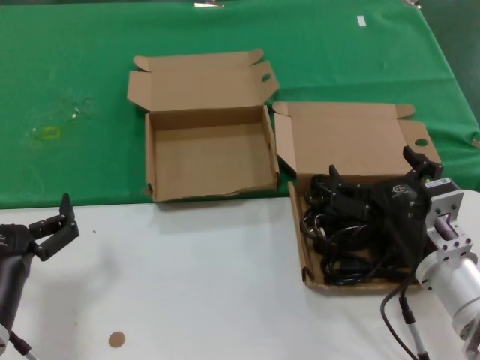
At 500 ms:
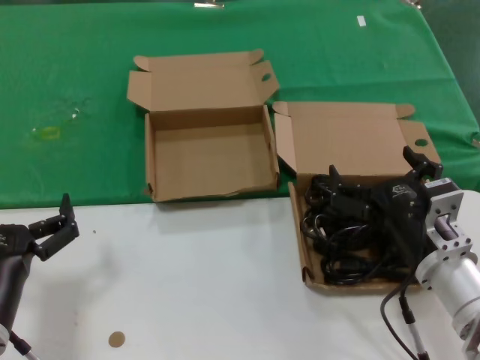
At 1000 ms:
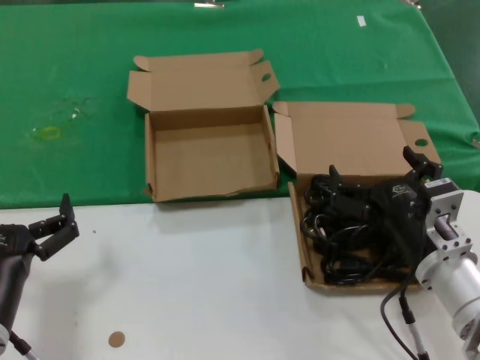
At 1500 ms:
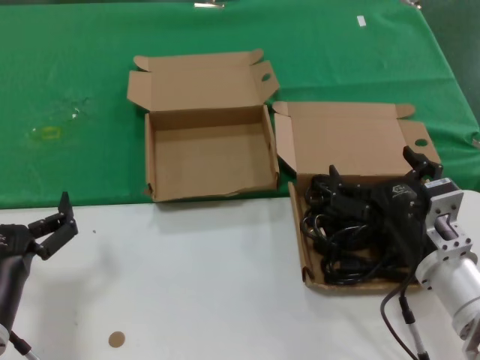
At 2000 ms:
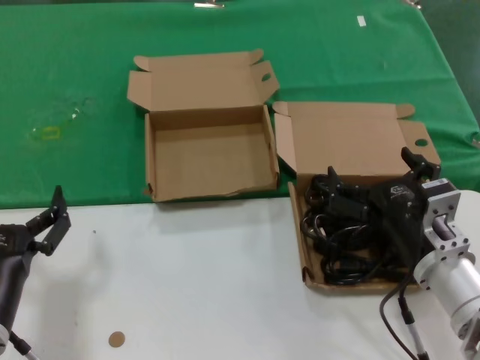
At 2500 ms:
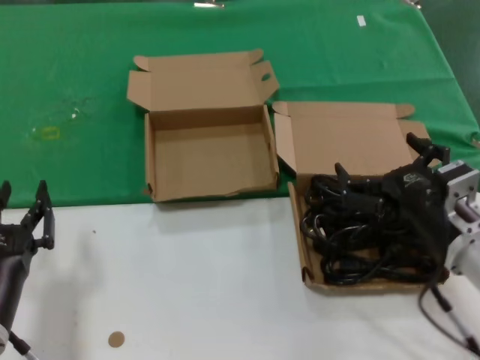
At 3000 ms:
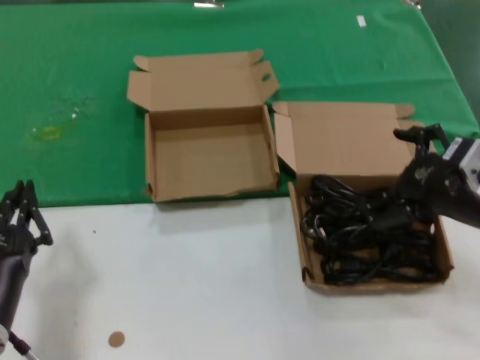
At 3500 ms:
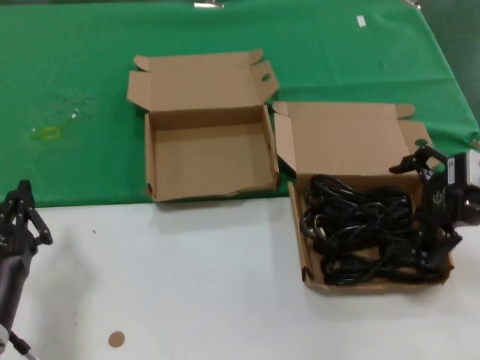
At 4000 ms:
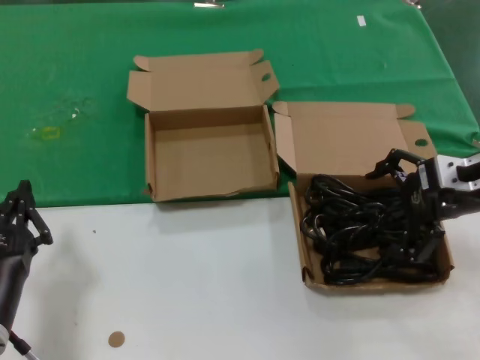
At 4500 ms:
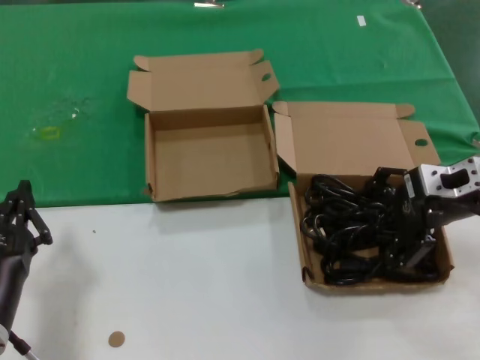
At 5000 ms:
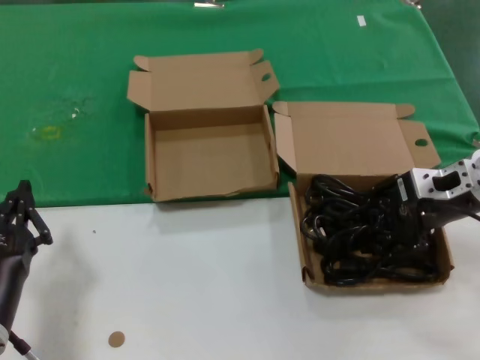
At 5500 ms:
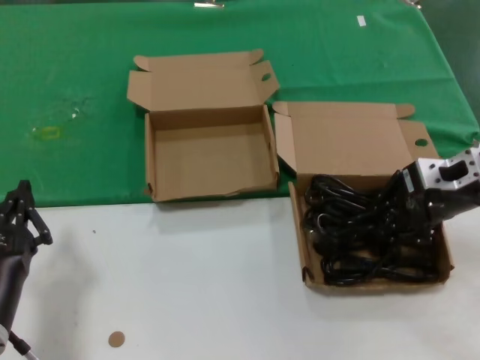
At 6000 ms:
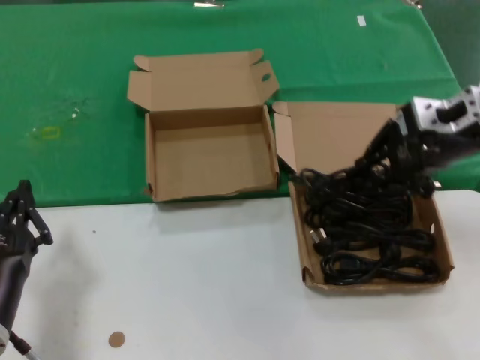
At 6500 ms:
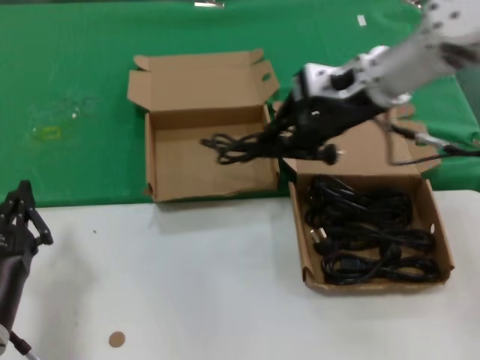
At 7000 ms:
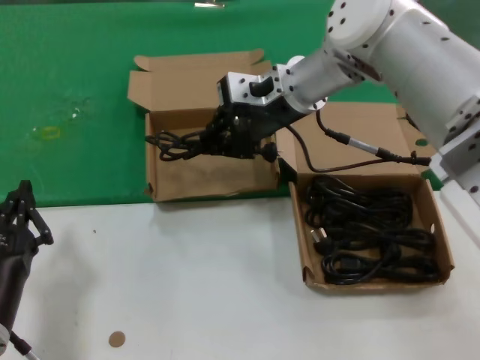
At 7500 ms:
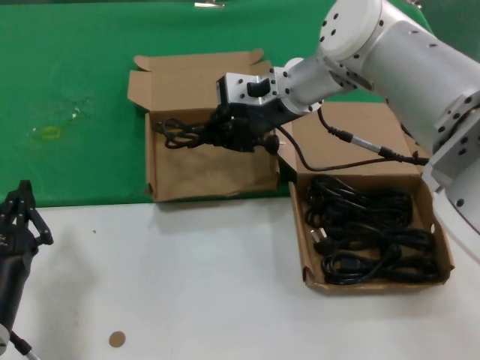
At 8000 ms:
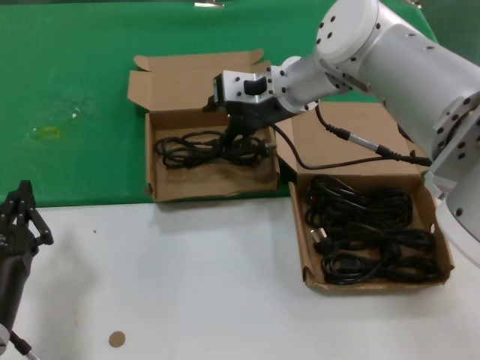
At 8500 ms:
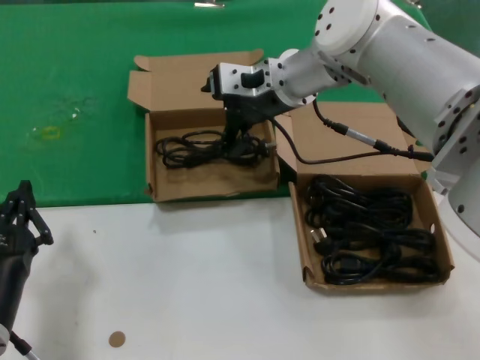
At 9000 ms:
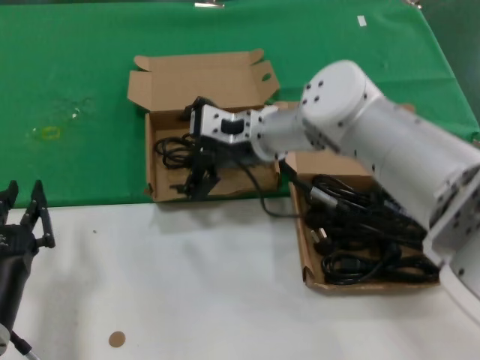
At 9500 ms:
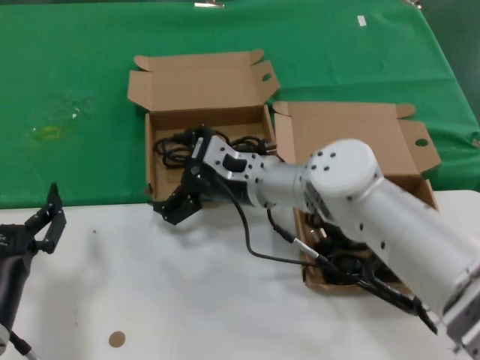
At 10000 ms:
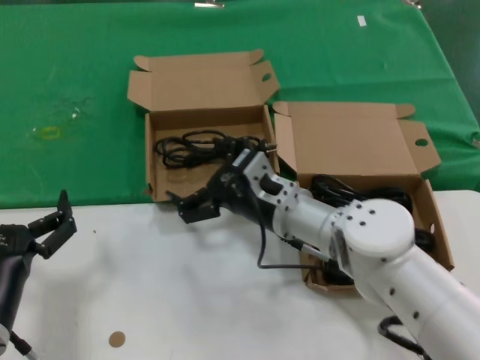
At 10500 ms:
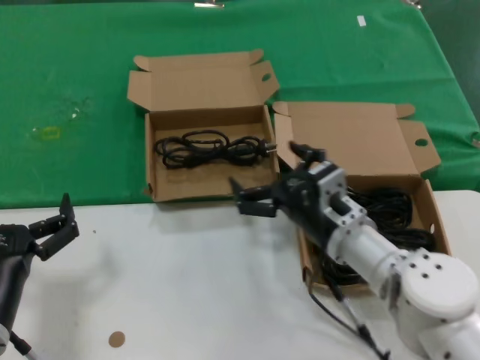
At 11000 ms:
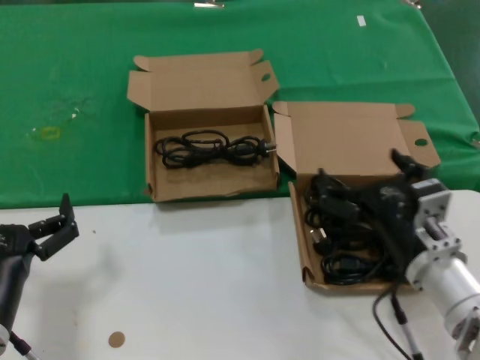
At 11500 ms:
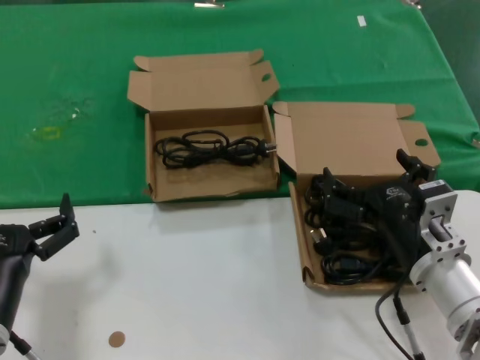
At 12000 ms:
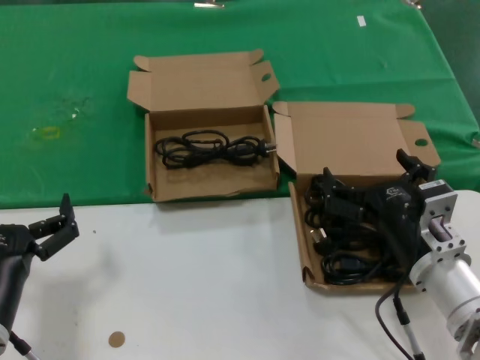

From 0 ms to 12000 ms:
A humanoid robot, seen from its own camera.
Task of the whole recording: take the parts from the box containing them and put them into an empty box.
Step, from 0 ms to 5000 ms: Grasp the data cable.
Step, from 5500 ms to 8000 ms: Place the data cable in the another box.
From 0 ms to 2000 ms: Both hands stay about where they are.
From 2000 ms to 4000 ms: The right hand shifts about 20 cm upward, to the right and forward.
From 4000 ms to 6000 ms: The right hand heads upward, covering approximately 5 cm.
From 6000 ms to 8000 ms: The right hand travels to the left and forward by roughly 25 cm.
From 8000 ms to 10000 ms: The right hand travels downward and backward by approximately 20 cm.
From 10000 ms to 12000 ms: The right hand is displaced backward and to the right by roughly 20 cm.

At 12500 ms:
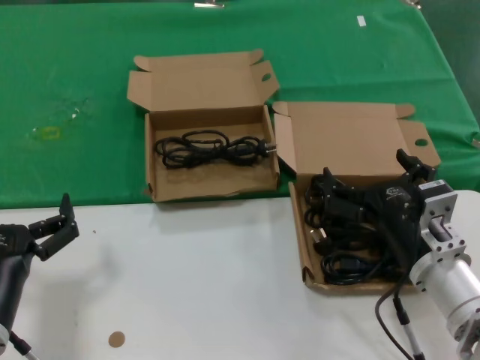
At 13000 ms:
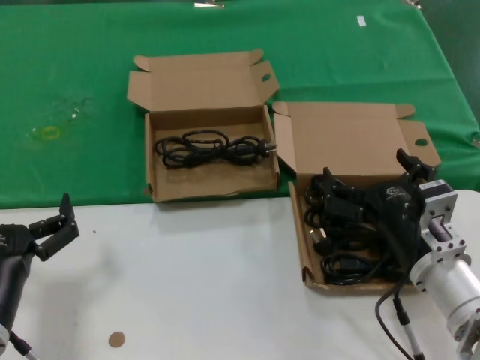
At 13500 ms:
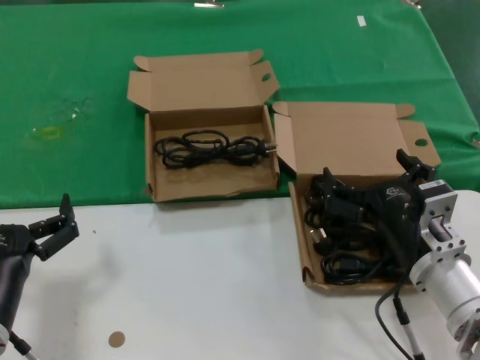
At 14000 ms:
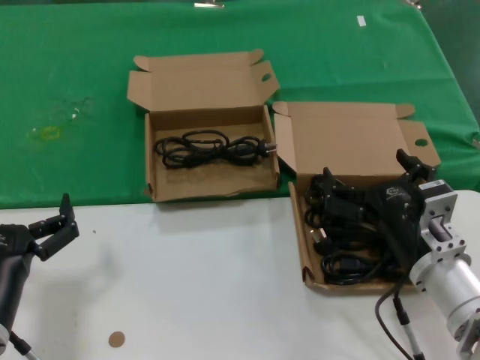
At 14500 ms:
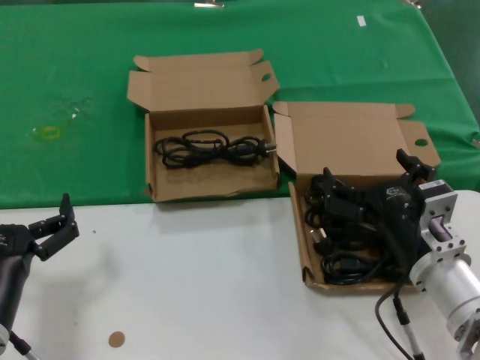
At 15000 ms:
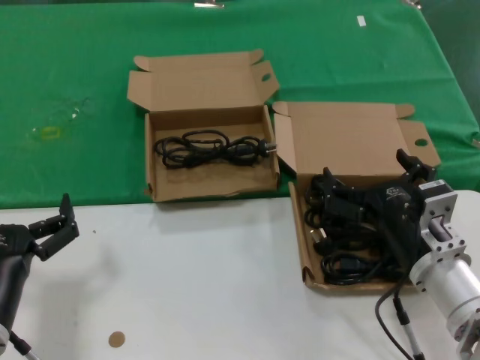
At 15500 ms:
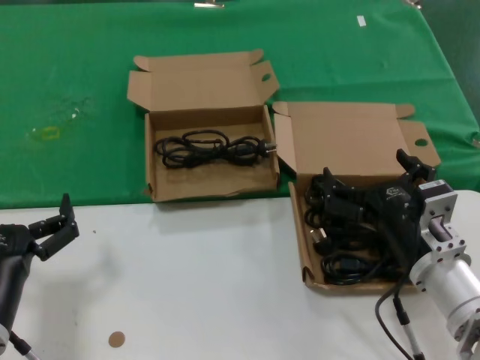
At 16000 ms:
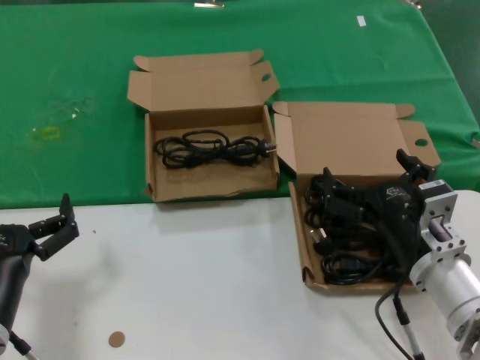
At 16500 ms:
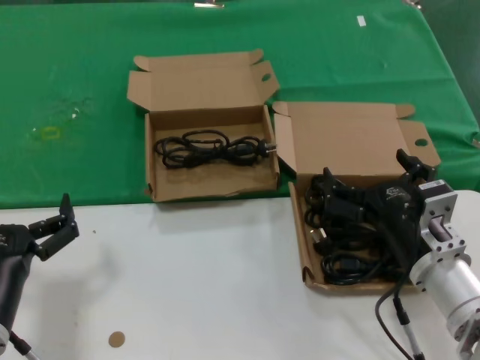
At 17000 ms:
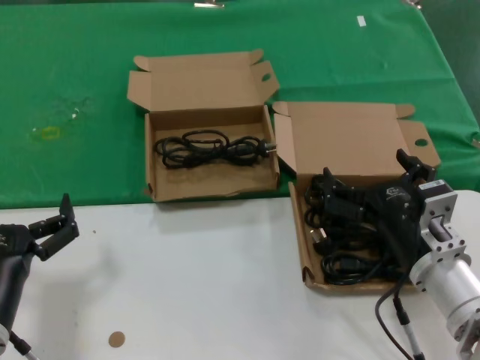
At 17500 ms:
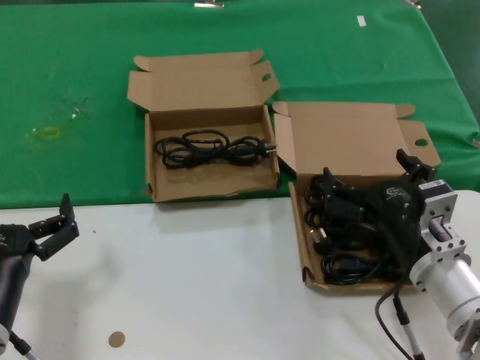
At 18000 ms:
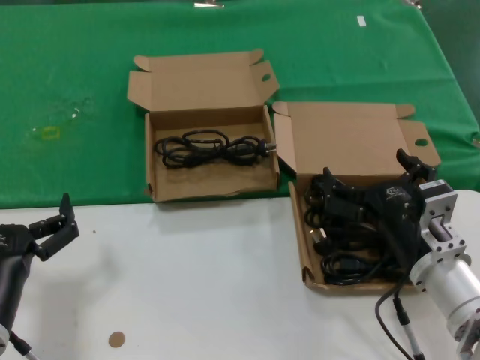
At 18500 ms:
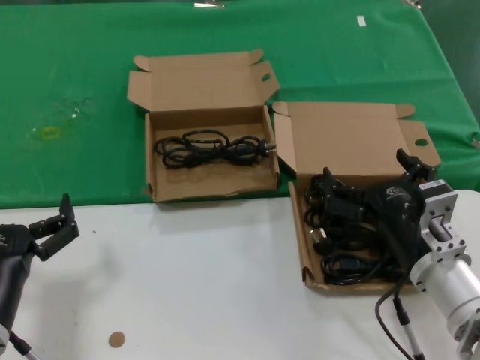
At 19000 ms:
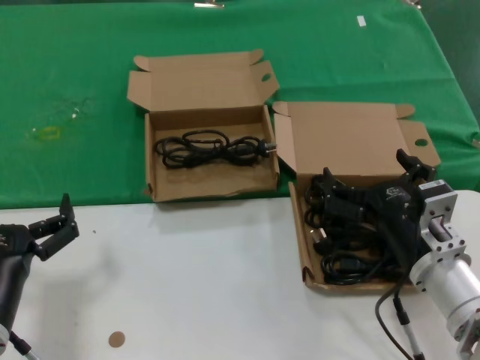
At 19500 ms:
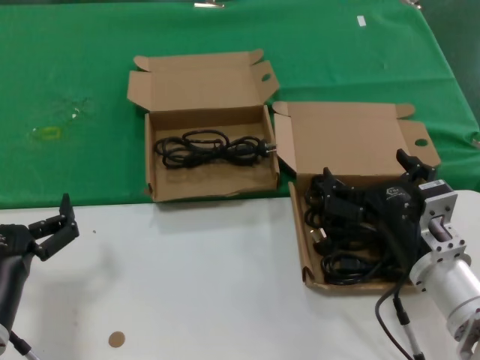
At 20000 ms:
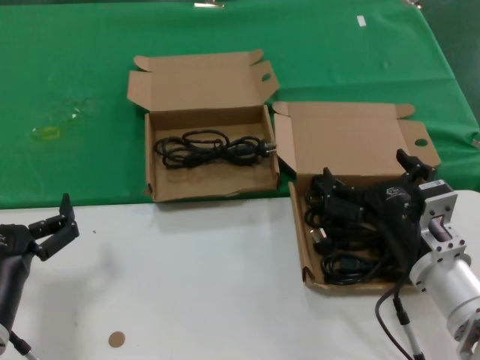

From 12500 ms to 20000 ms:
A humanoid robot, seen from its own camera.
Task of the whole recording: take the parts from the box containing them and put them into an empty box.
From 12500 ms to 20000 ms: The two hands keep their place.

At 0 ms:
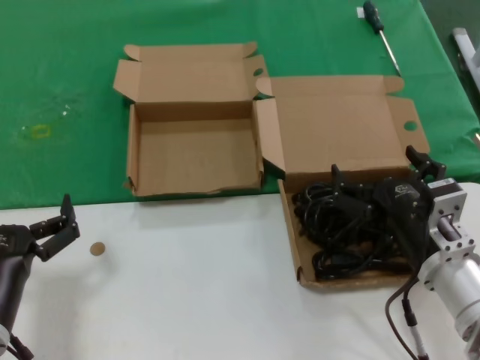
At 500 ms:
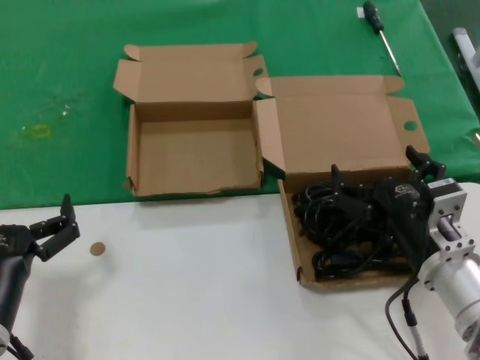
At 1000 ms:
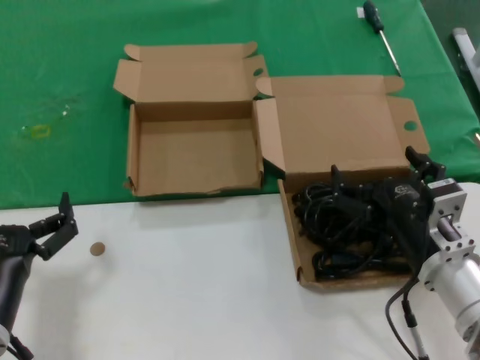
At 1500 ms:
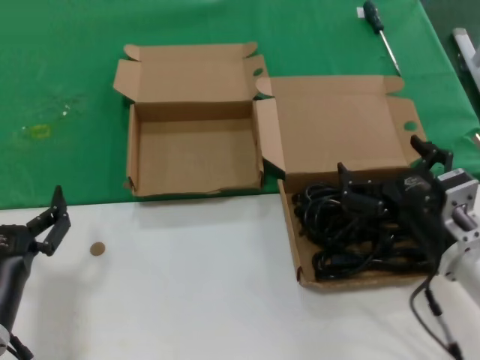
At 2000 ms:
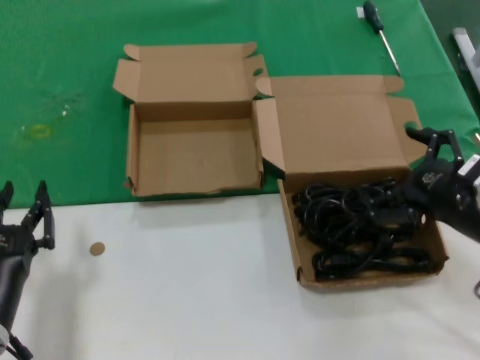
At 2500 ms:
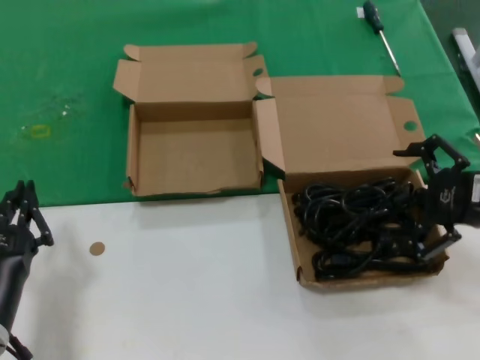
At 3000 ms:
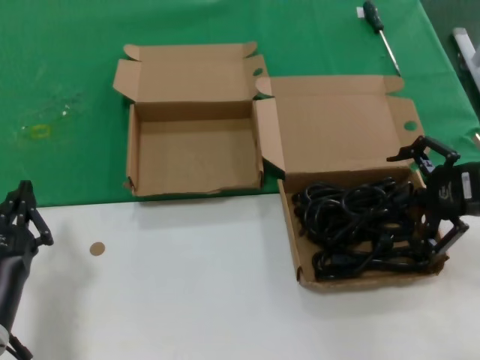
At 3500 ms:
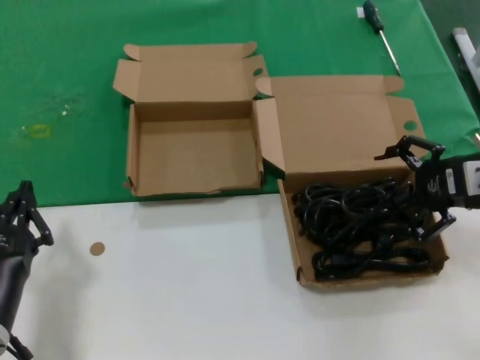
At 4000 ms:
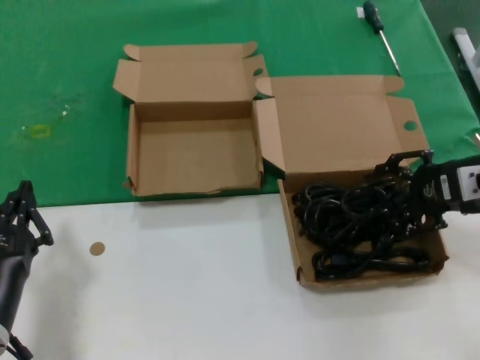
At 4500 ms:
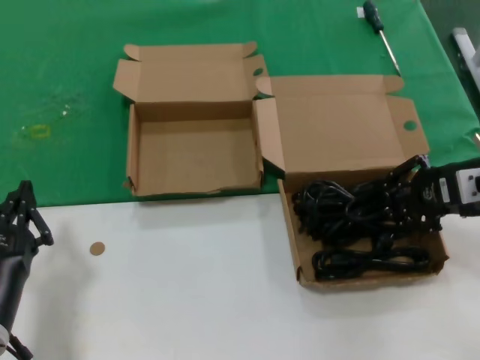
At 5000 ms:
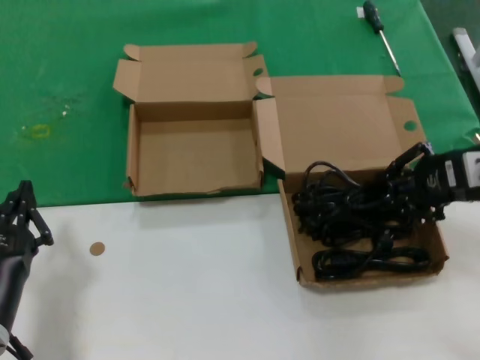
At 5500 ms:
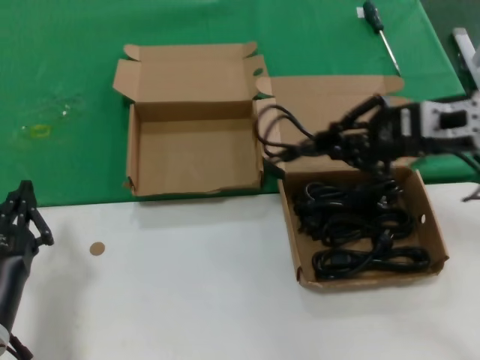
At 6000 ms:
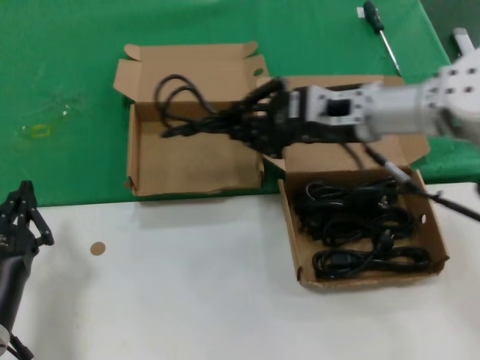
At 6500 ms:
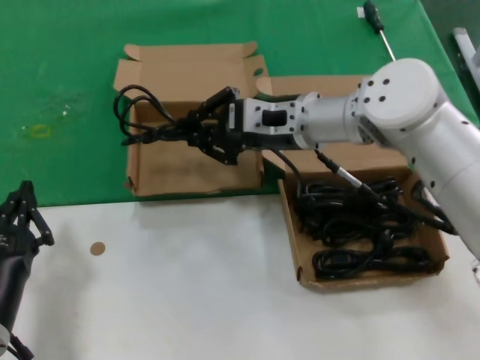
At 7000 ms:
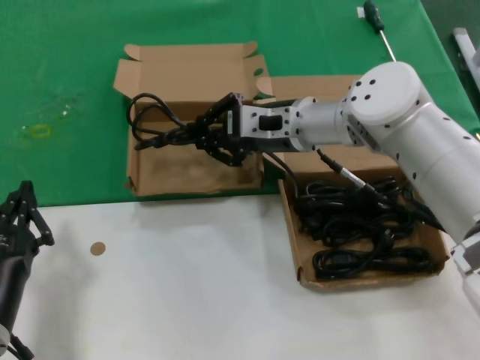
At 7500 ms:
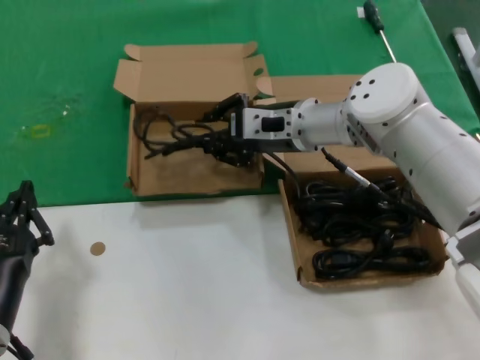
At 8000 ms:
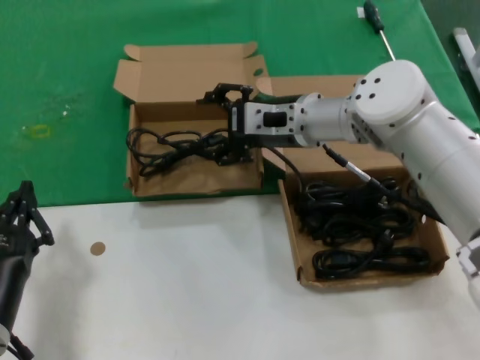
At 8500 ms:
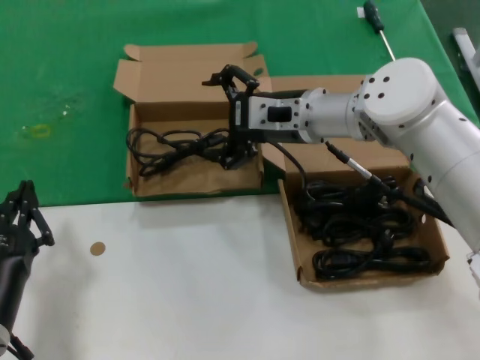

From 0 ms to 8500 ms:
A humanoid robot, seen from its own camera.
Task of the whole recording: take the parts from the box containing them and put them into an empty box.
Step, from 0 ms to 4500 ms: Grasp the data cable.
Step, from 5000 ms to 8000 ms: Place the data cable in the another box.
From 0 ms to 2000 ms: The right hand moves to the right and upward, roughly 10 cm.
From 2000 ms to 4000 ms: The right hand moves forward and upward, some 10 cm.
From 4000 ms to 6500 ms: The right hand goes roughly 25 cm to the left.
From 6500 ms to 8500 ms: The hands move only a little.
